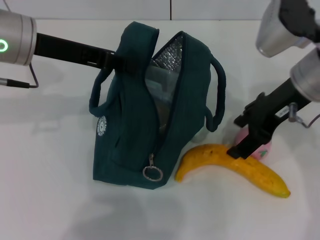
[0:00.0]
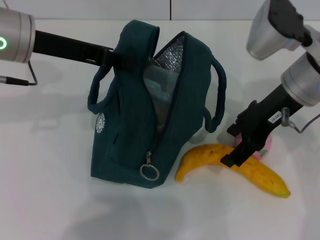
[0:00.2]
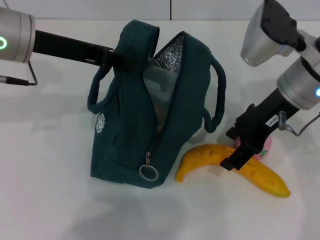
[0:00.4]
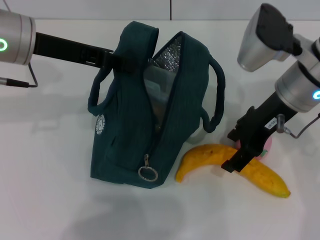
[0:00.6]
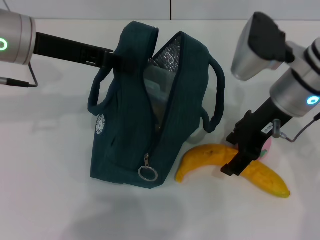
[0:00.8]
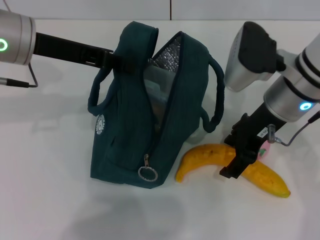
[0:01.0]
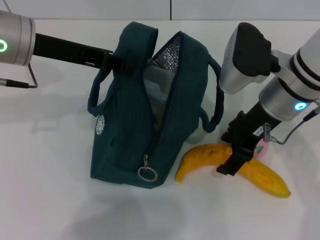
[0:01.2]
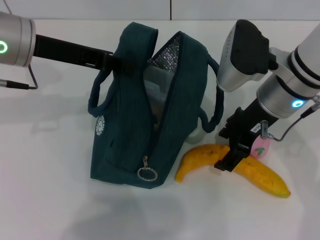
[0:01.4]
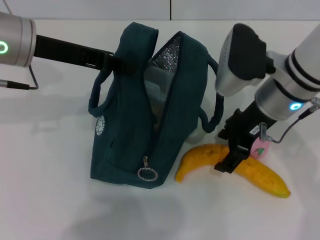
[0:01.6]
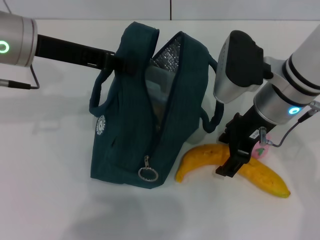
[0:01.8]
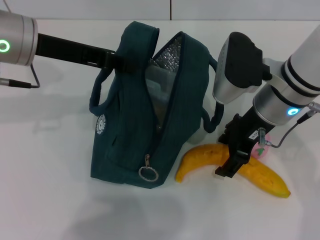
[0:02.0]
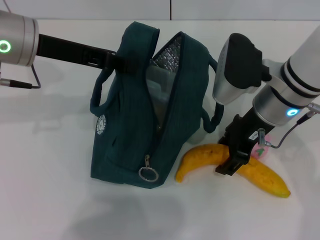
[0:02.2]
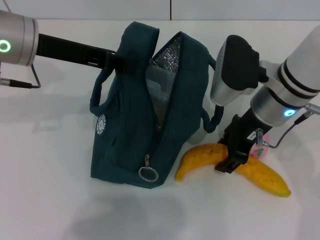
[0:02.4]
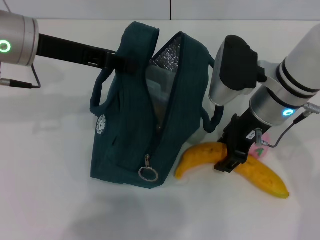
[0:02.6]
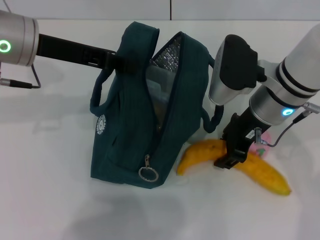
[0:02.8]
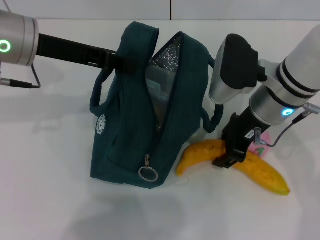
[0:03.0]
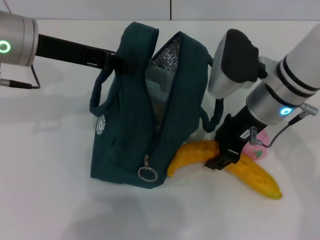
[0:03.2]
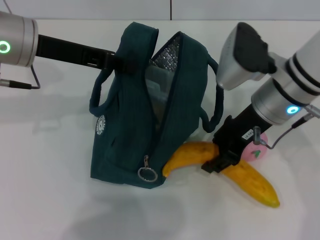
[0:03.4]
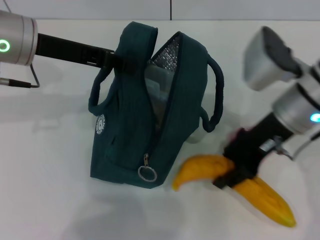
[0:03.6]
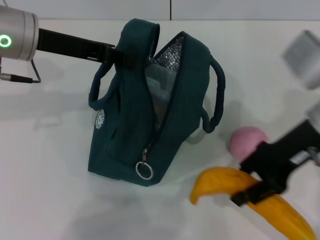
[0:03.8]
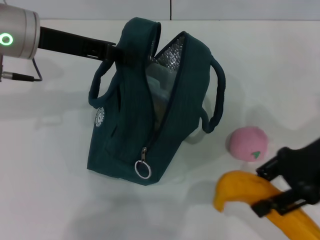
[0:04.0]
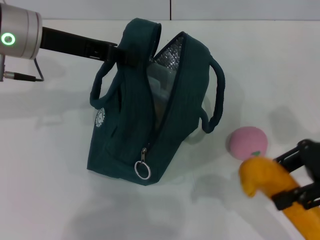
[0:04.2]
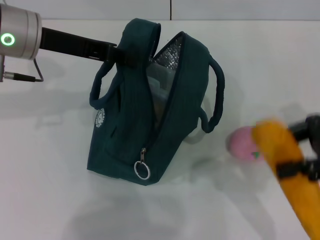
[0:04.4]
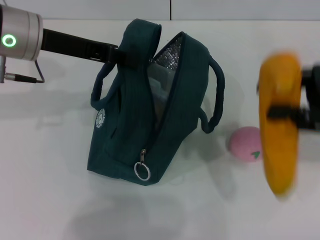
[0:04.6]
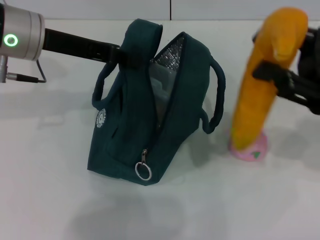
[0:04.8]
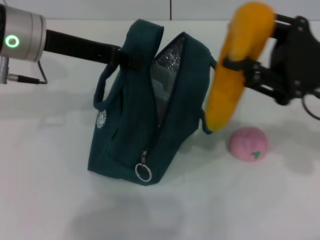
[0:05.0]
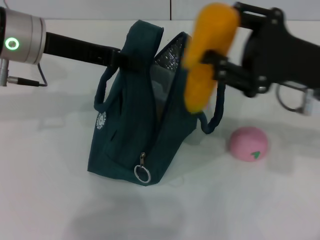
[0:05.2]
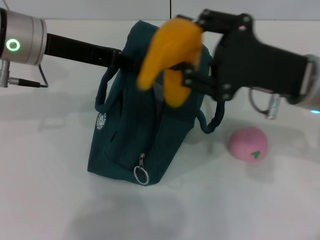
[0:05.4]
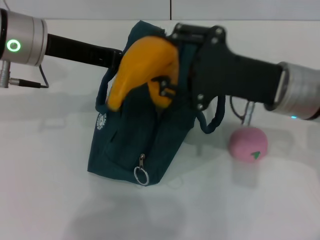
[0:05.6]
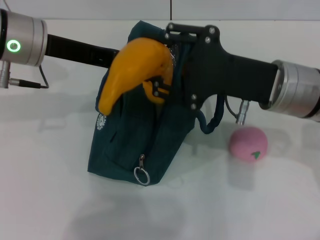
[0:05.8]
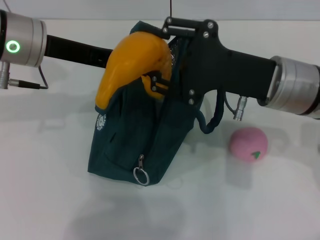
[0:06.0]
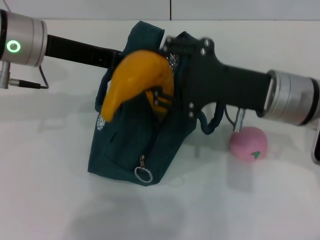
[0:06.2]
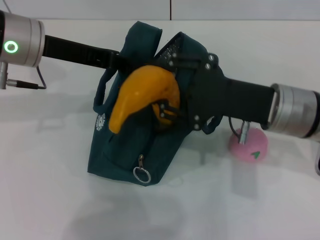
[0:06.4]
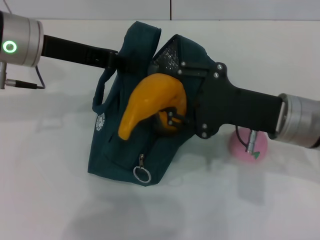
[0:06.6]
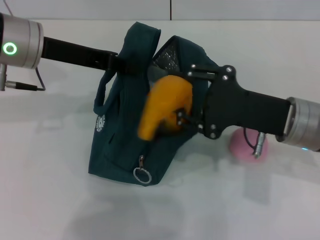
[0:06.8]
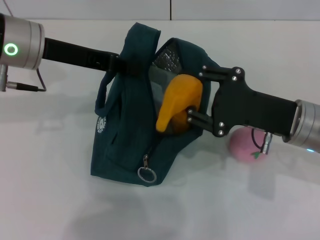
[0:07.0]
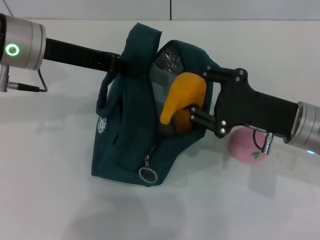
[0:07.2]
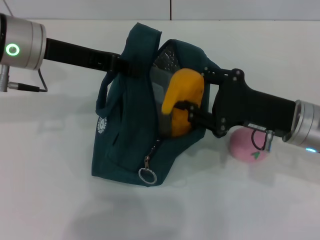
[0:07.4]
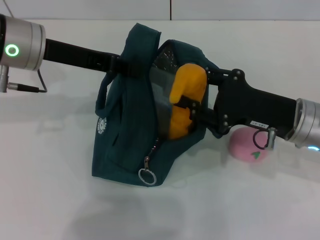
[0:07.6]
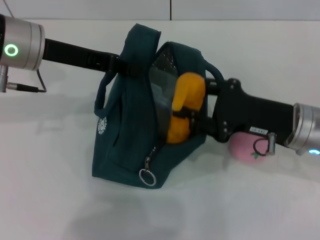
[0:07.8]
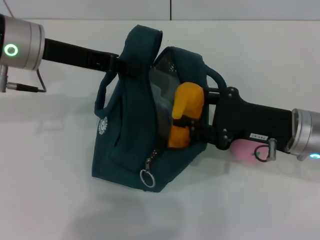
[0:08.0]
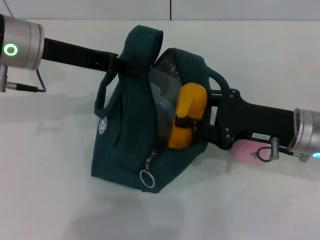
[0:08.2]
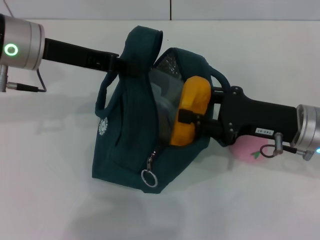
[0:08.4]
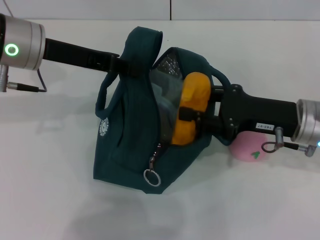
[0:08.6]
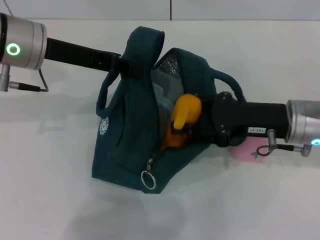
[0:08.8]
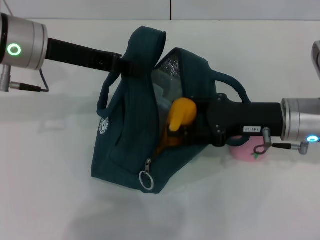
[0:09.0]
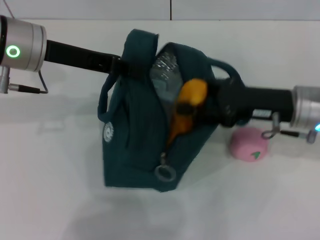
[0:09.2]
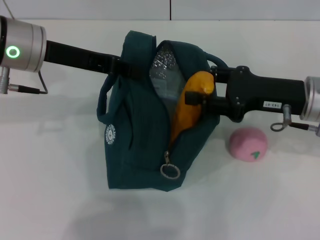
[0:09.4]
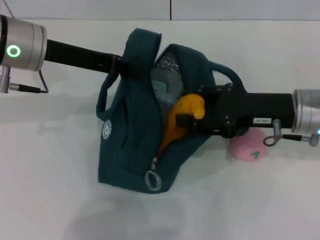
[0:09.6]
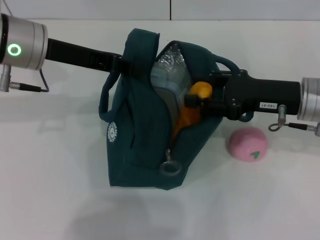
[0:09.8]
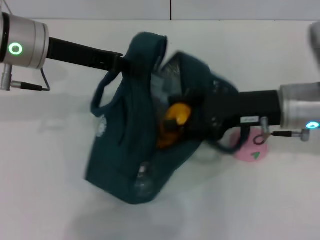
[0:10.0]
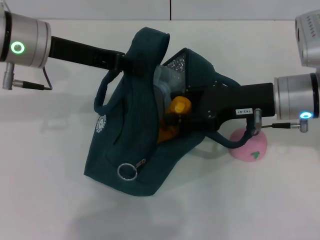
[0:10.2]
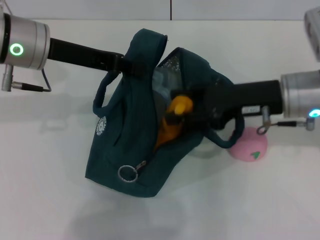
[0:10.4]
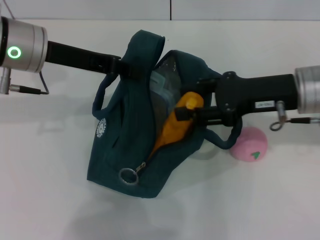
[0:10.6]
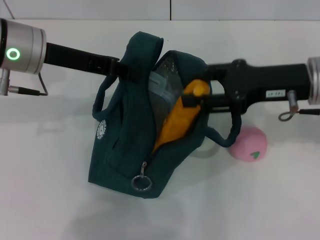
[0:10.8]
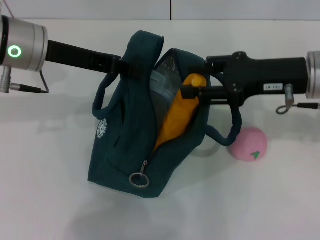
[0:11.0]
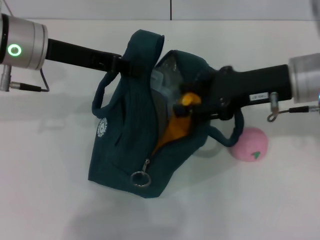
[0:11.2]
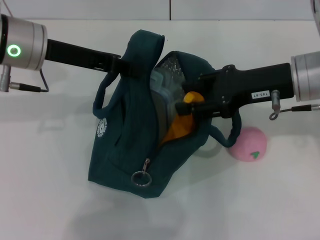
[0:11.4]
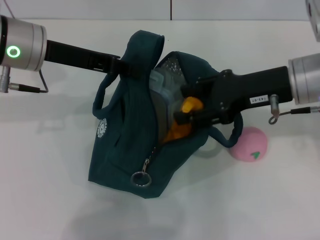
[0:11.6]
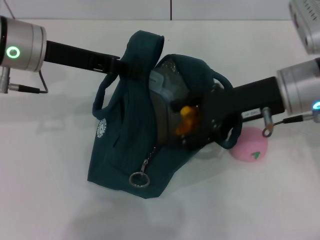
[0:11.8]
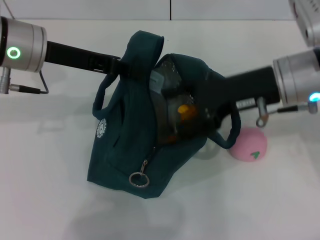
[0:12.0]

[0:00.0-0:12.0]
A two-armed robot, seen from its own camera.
Step, 0:00.0 to 0:03.0: Take the banana with your right hand.
0:00.0 to 0:01.6: The right gripper shifts by roughly 5 cm.
0:01.6 to 0:03.0: The right gripper closes.
0:03.0 to 0:04.4: The right gripper travels to the right by some 15 cm.
0:04.4 to 0:06.0: The right gripper heads to the left, covering approximately 15 cm.
0:06.0 to 0:07.6: The right gripper is displaced downward by some 5 cm.
0:09.0 to 0:10.4: The grippers move only a little.
0:10.4 to 0:12.0: The grippers move only a little.

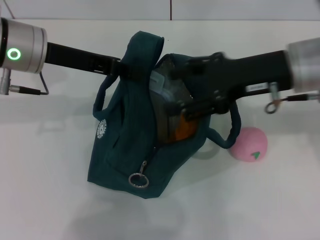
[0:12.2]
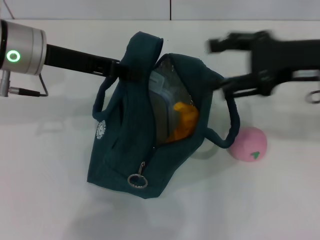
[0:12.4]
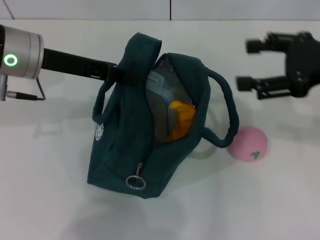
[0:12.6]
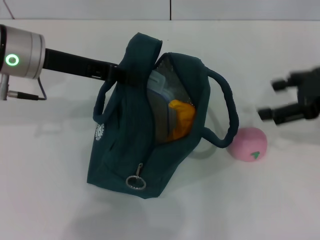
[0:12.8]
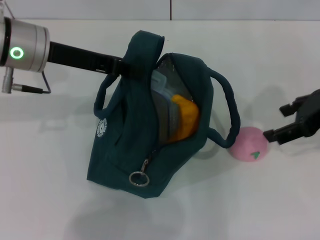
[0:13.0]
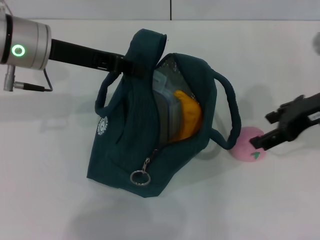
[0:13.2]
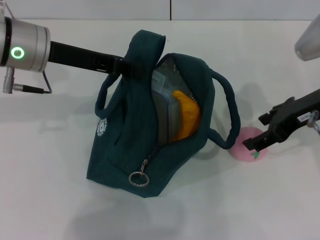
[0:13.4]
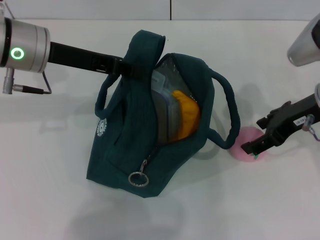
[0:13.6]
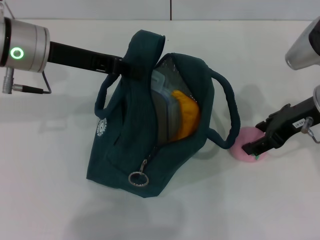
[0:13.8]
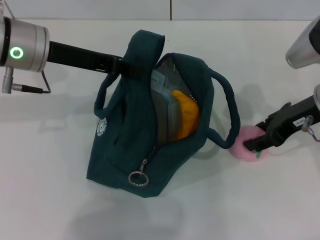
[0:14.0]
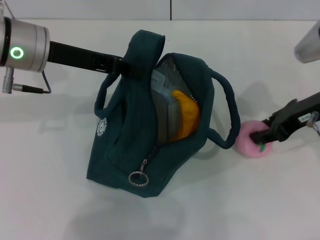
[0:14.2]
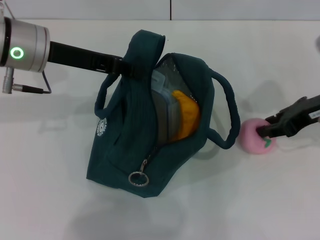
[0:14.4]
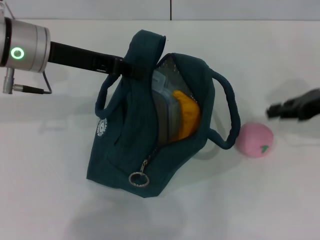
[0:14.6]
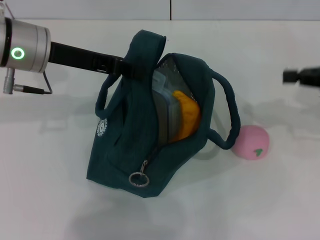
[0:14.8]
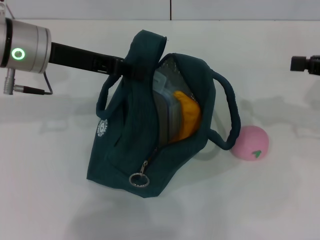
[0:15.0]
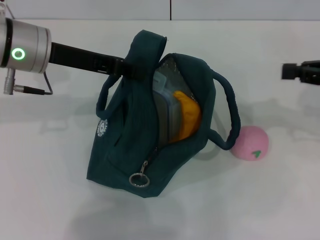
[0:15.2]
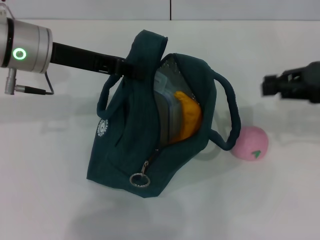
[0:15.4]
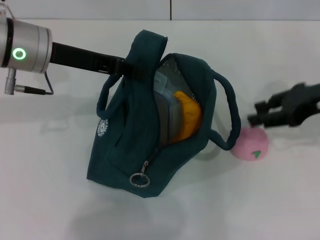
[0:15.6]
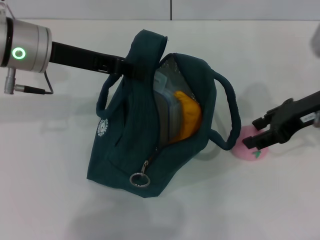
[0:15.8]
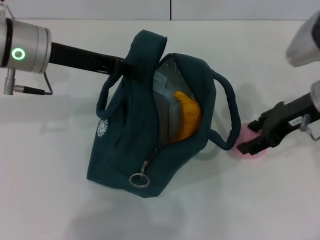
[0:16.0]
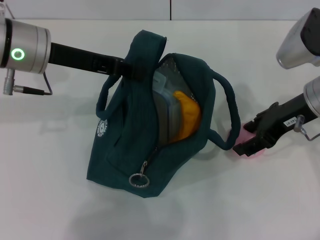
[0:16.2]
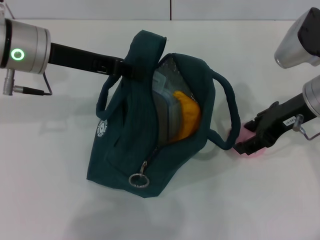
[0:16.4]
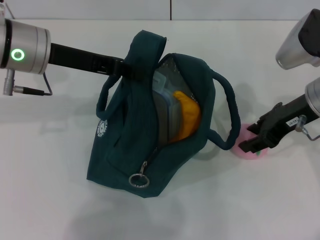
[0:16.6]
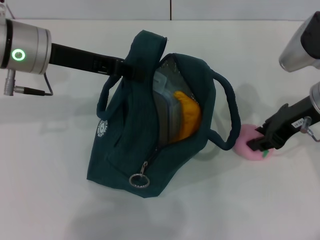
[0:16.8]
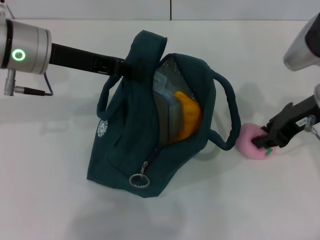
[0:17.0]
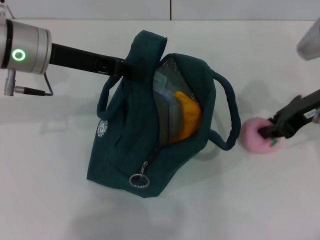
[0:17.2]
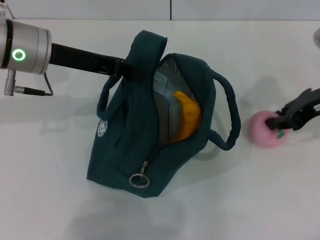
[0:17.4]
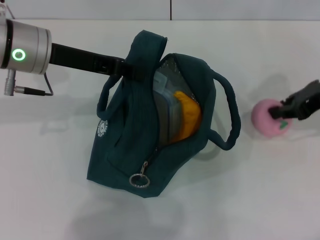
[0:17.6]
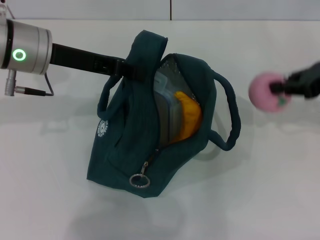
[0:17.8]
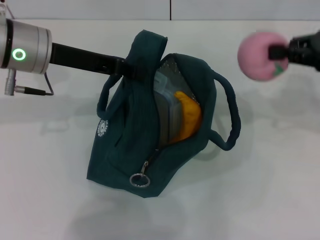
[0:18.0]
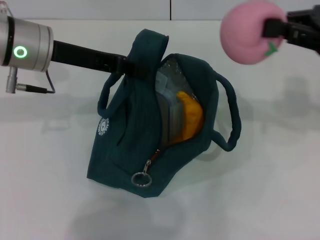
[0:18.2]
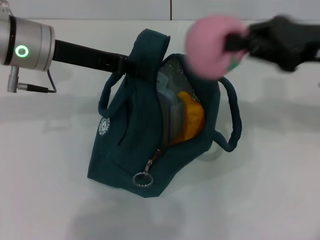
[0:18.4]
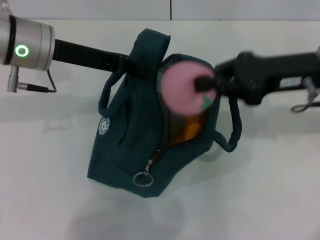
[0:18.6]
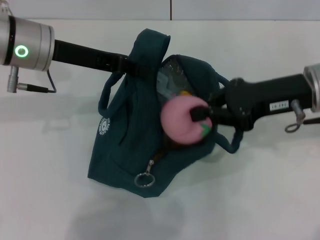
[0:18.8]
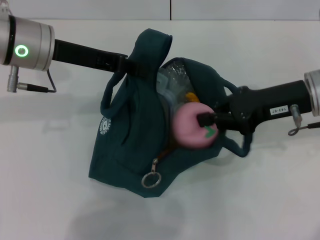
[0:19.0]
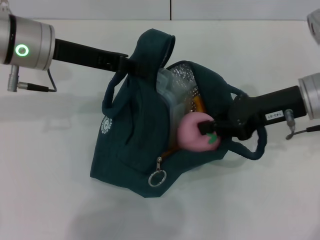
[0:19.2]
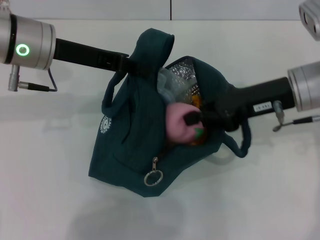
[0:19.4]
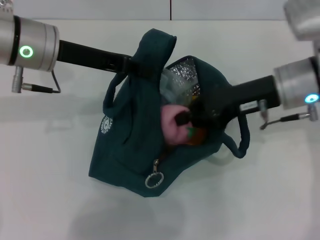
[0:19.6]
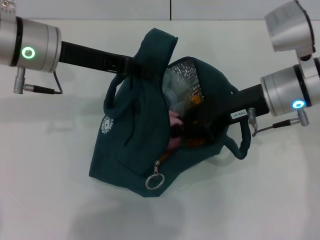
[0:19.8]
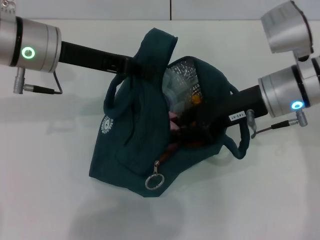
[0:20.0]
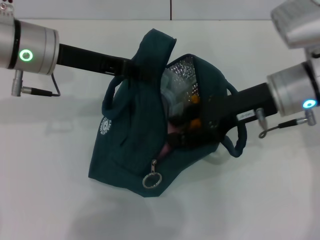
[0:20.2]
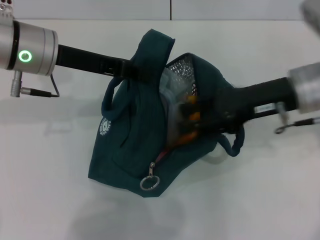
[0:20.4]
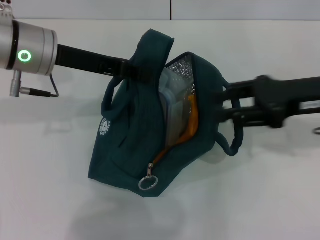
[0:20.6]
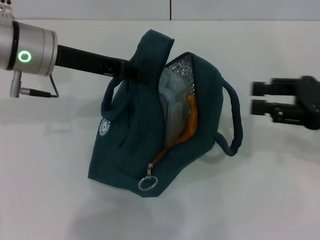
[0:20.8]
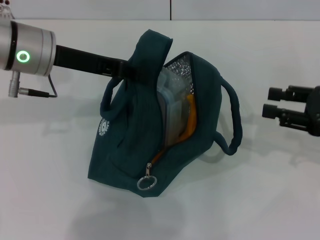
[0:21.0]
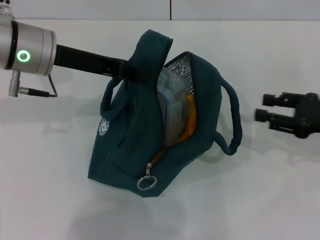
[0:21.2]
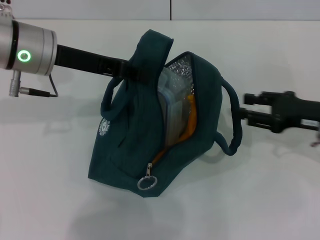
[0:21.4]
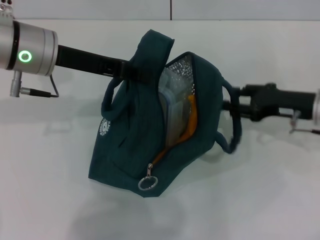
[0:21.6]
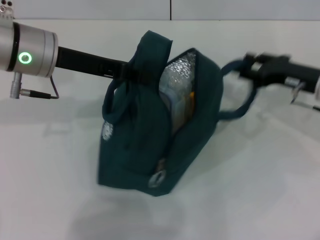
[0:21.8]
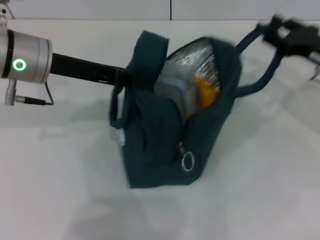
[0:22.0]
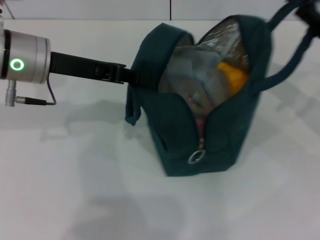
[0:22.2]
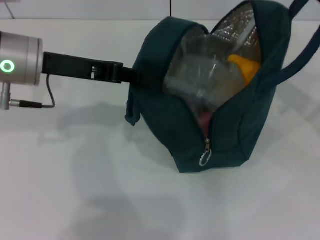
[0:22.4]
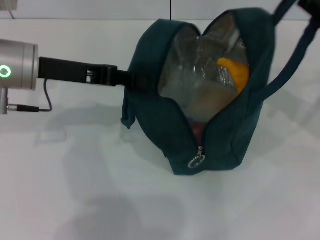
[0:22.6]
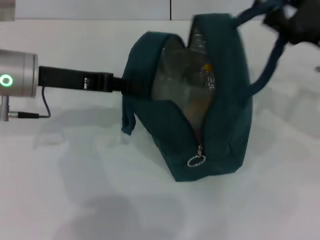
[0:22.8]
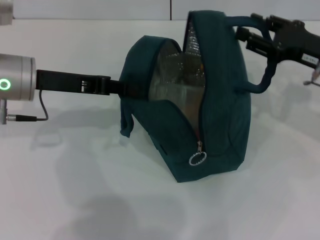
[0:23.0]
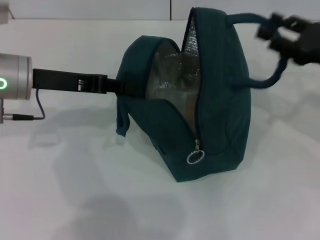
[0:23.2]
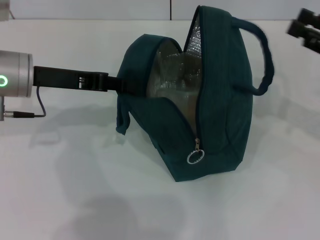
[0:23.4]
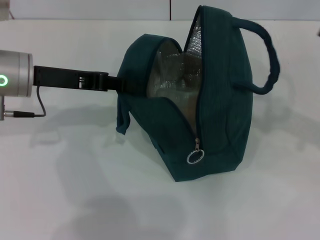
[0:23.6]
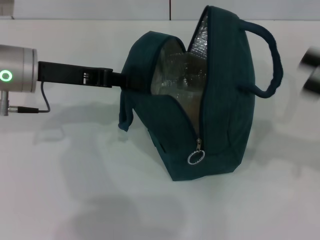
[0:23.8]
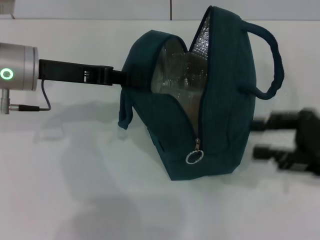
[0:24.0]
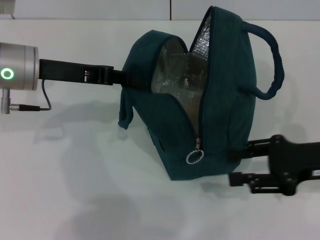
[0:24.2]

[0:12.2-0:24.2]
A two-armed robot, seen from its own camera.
Step, 0:12.4 to 0:16.6: Grab the peach with your right hand.
Step, 0:20.4 to 0:23.0: Hold the lunch bag with your right hand.
0:13.8 to 0:15.2: The right gripper shifts some 10 cm to the right, and closes up.
0:15.2 to 0:16.6: The right gripper shifts some 10 cm to the left, and opens up.
0:16.6 to 0:18.2: The right gripper is displaced to the right and upward by approximately 10 cm, and closes up.
0:18.2 to 0:19.8: The right gripper travels to the left and downward by about 15 cm.
0:19.8 to 0:21.2: The right gripper shifts some 15 cm to the right, and opens up.
0:21.2 to 0:22.6: The right gripper moves upward, roughly 5 cm.
0:22.6 to 0:24.2: The right gripper moves backward and downward, roughly 10 cm.
